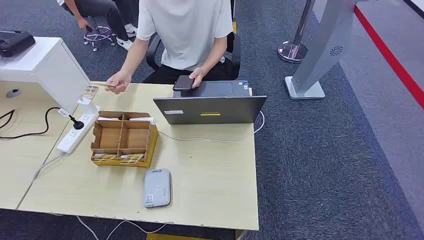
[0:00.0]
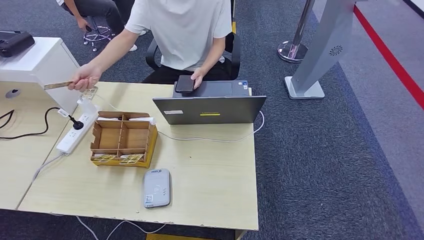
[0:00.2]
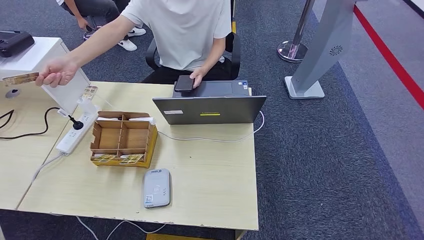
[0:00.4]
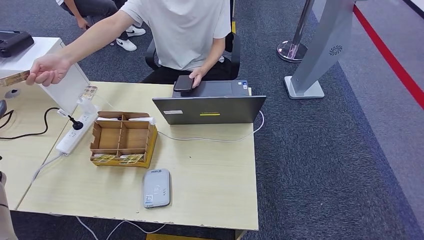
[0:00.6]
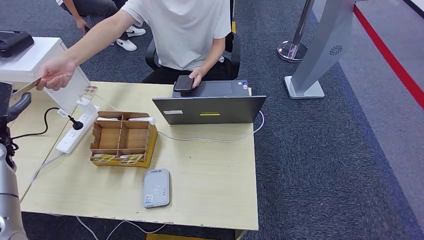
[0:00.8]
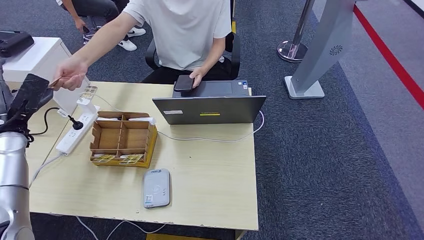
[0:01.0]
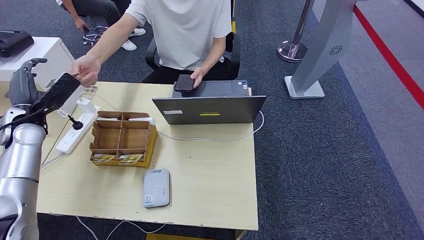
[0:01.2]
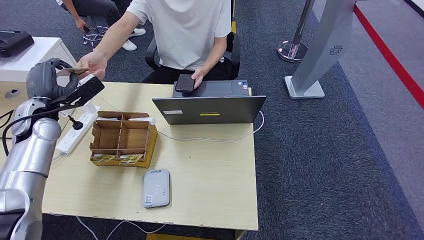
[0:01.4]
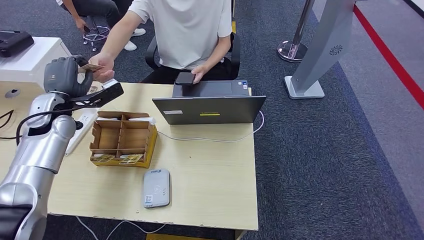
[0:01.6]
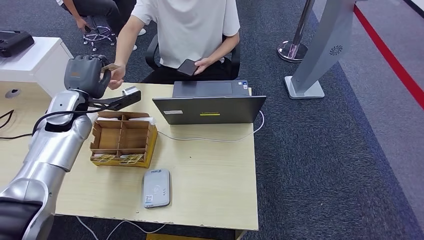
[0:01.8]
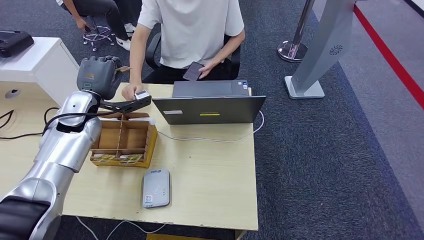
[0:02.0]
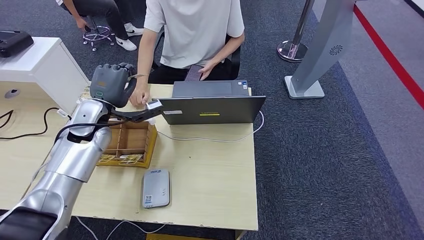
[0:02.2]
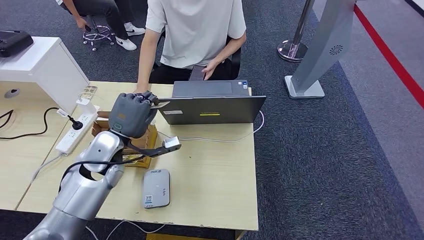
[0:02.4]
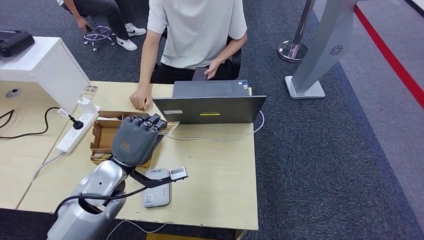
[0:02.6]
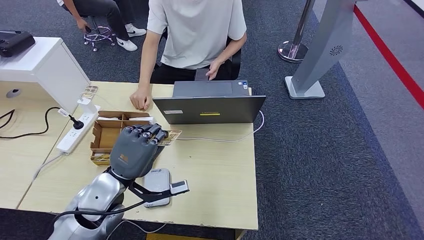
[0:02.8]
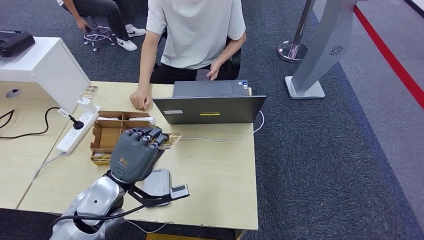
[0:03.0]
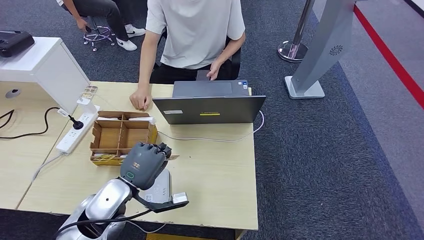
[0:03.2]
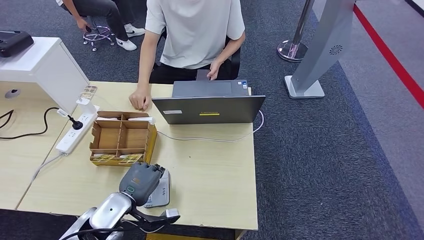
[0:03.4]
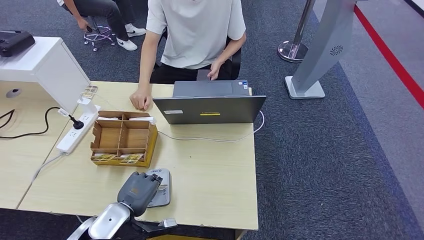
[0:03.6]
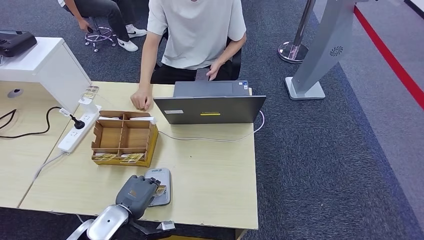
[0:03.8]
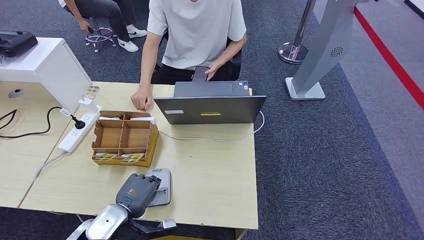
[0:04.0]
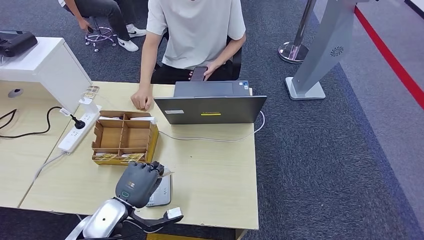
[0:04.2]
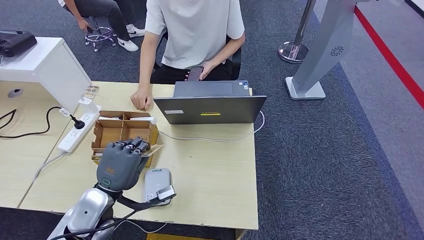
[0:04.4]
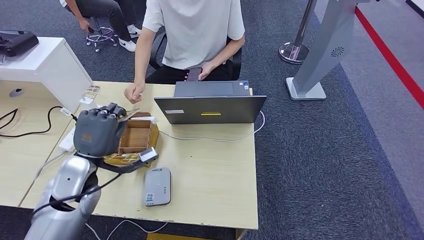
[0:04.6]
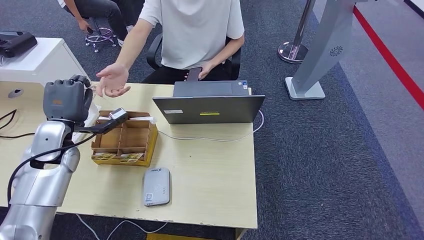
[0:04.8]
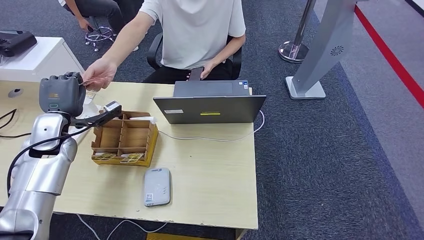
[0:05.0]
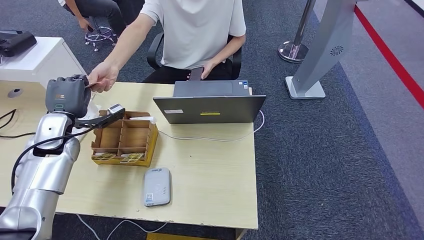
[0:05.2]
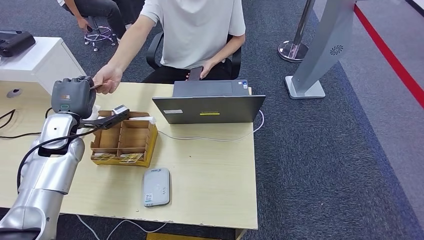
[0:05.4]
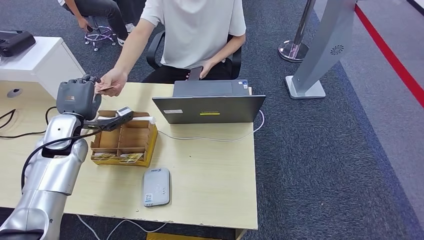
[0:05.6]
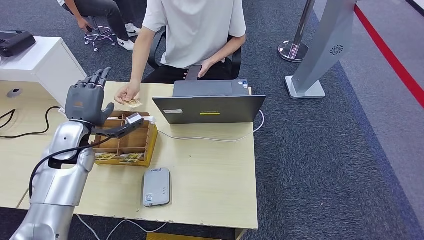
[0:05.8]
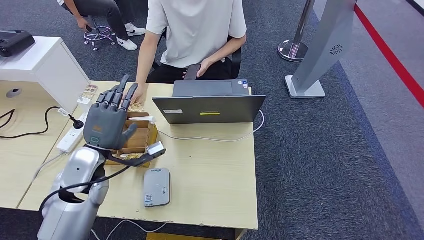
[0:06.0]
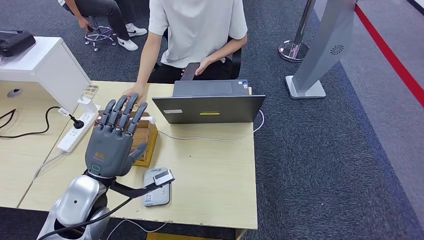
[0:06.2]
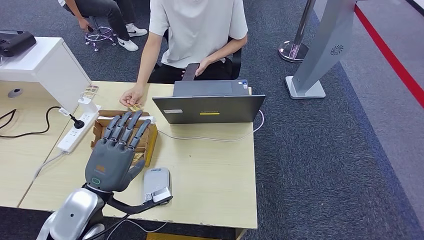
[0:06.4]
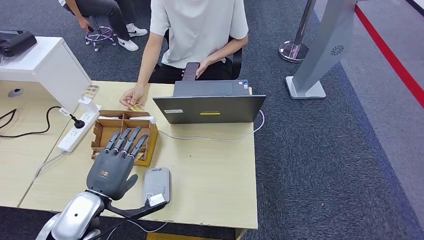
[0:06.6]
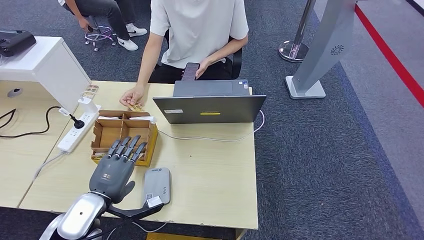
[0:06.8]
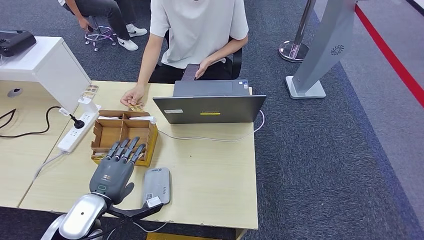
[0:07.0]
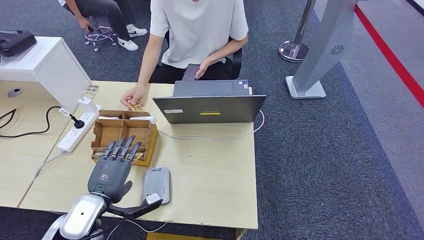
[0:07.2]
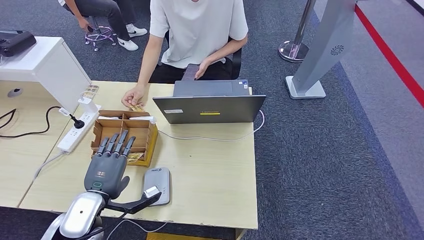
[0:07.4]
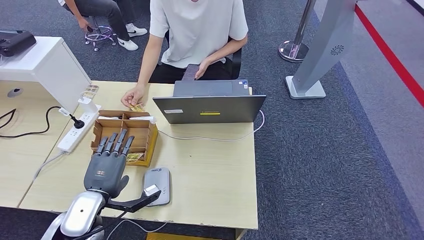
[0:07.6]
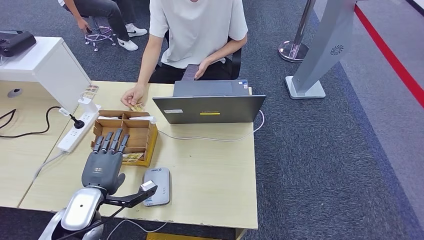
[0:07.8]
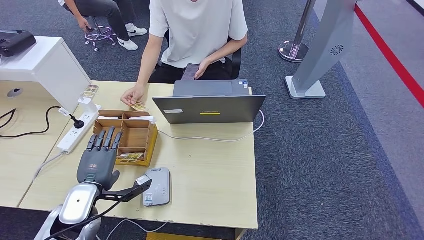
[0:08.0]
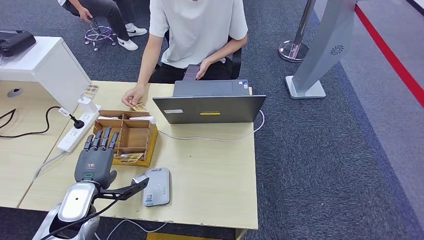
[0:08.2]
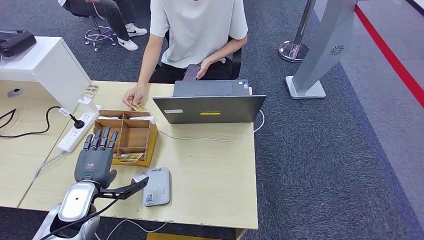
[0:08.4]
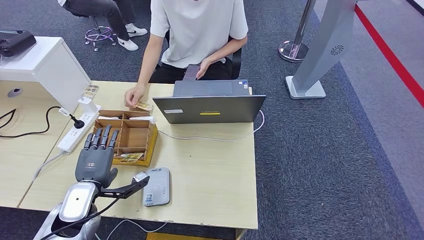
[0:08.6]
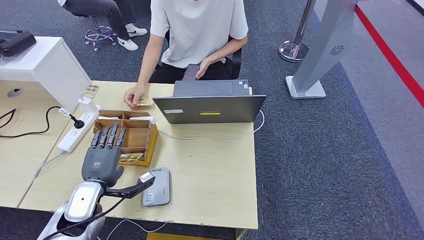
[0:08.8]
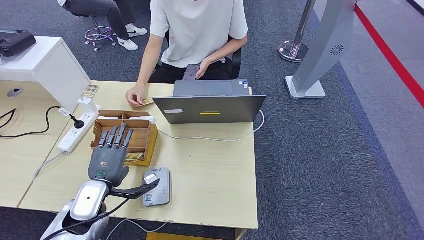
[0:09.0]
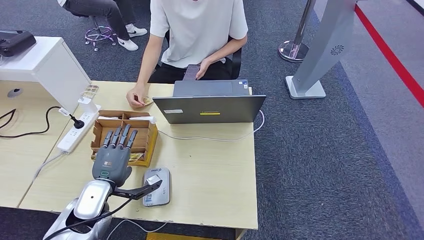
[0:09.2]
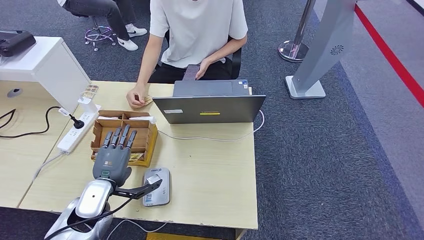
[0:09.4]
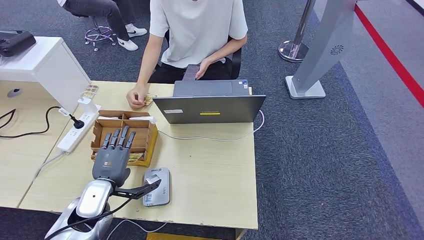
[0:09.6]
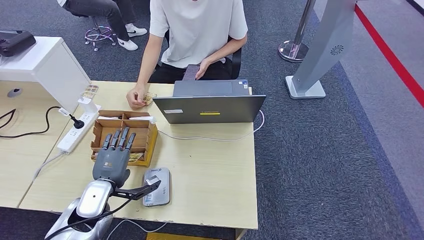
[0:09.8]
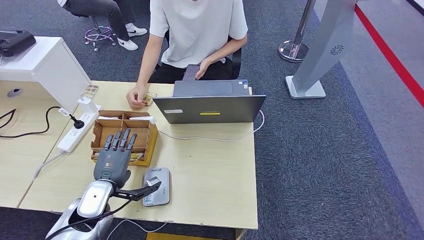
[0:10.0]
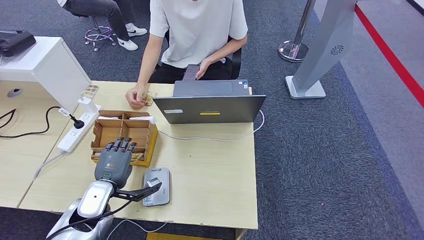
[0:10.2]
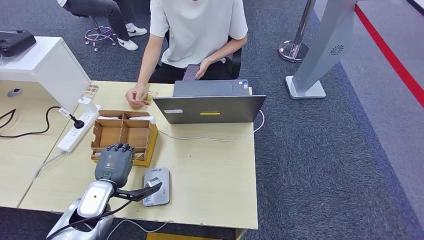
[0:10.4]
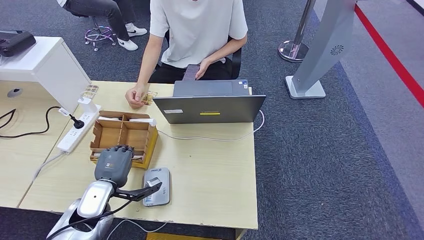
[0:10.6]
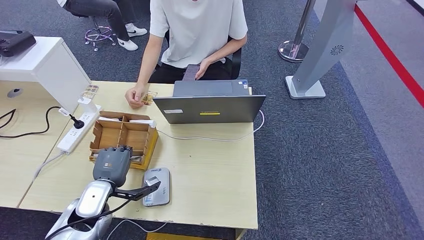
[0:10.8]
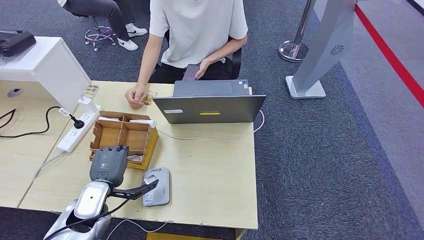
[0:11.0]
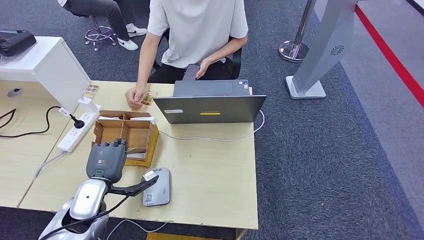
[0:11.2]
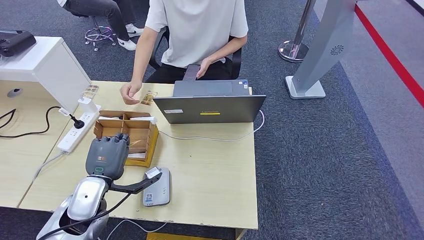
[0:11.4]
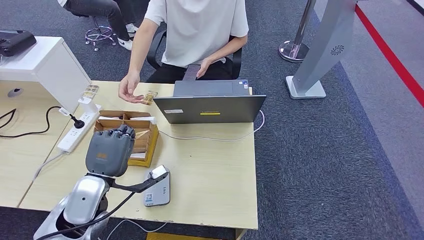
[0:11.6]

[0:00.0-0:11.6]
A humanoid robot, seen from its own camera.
Step, 0:00.0 to 0:03.0: Take the ID card from the person's hand.
Step, 0:03.2 to 0:04.2: Place the ID card on the card reader.
Step, 0:04.4 to 0:06.4: Hand the ID card to the person.
0:02.8 to 0:04.4: The left hand travels downward and back again, approximately 10 cm each way.
0:04.4 to 0:05.8: The left hand shifts some 15 cm forward and to the left.
0:05.8 to 0:07.2: The left hand shifts approximately 15 cm backward and downward.
0:07.2 to 0:08.8: The hands move only a little.
0:08.8 to 0:10.2: The hands make only small movements.
0:10.2 to 0:11.6: The left hand heads upward, covering approximately 10 cm.

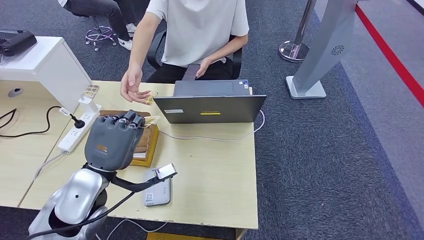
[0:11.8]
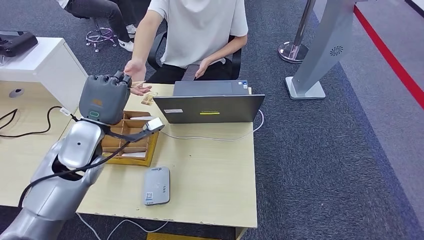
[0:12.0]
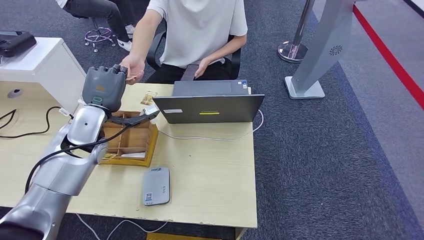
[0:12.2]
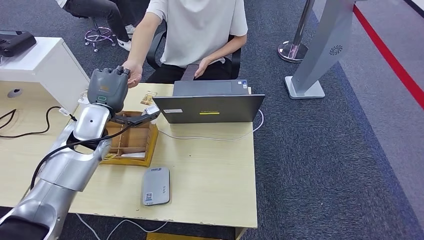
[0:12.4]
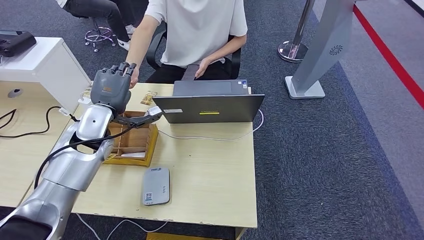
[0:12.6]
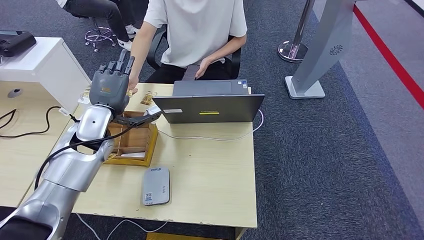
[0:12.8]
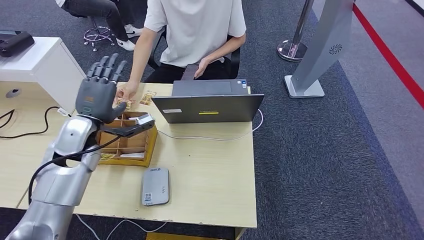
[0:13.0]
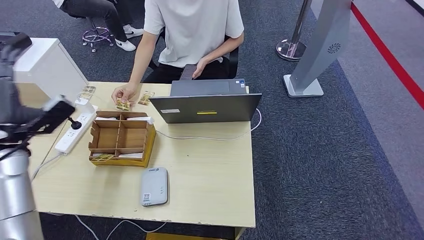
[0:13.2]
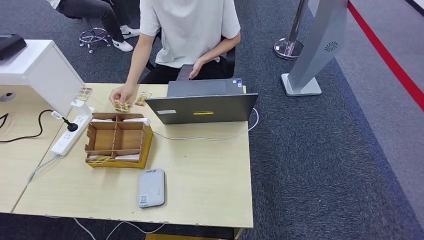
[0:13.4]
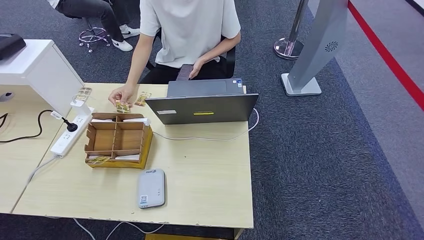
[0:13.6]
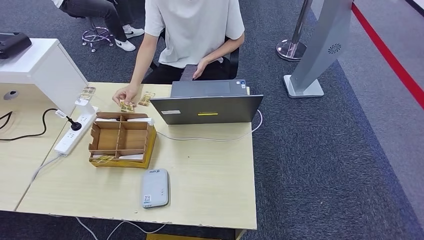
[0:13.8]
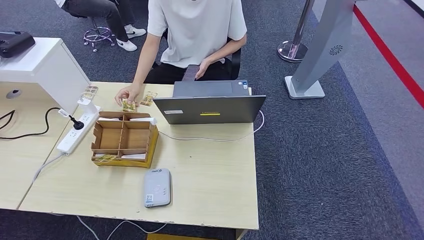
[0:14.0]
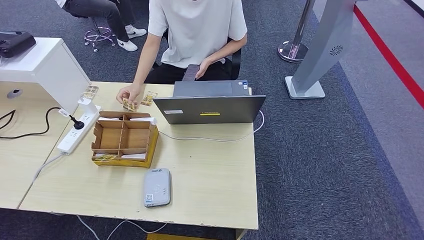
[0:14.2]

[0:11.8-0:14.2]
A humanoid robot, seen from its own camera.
Step, 0:12.0 to 0:14.2: Hand the room key to the person.
0:11.8 to 0:13.0: The left hand travels forward and to the left by some 15 cm.
0:13.0 to 0:14.2: The left hand travels backward and downward by some 50 cm, and moves about 40 cm to the left and comes back.
